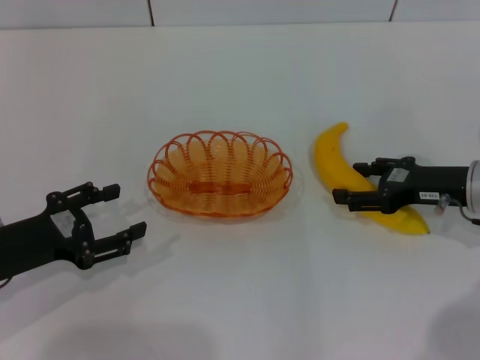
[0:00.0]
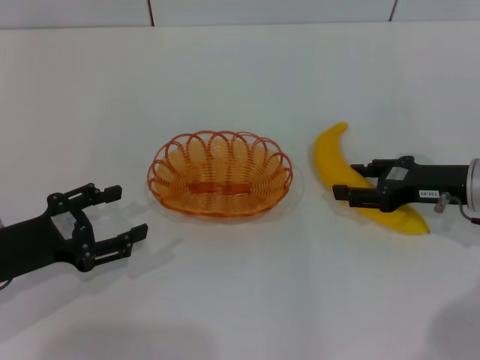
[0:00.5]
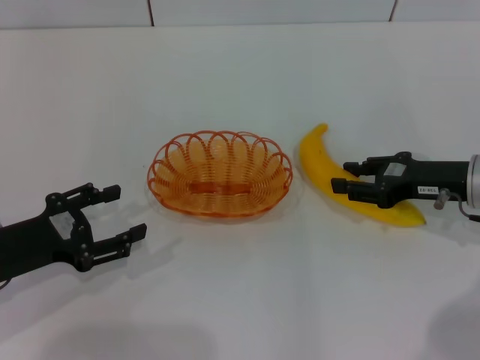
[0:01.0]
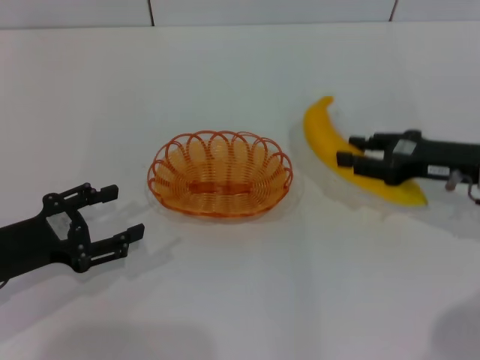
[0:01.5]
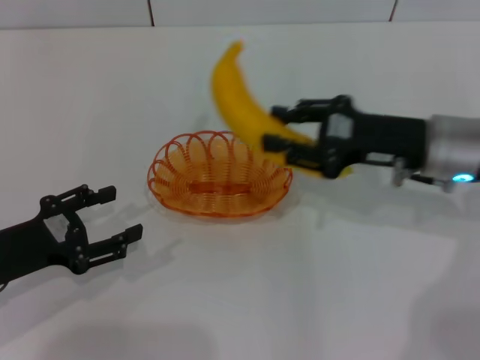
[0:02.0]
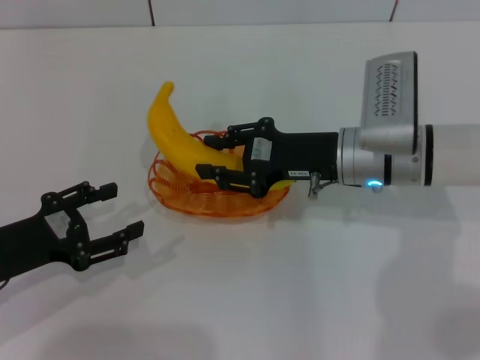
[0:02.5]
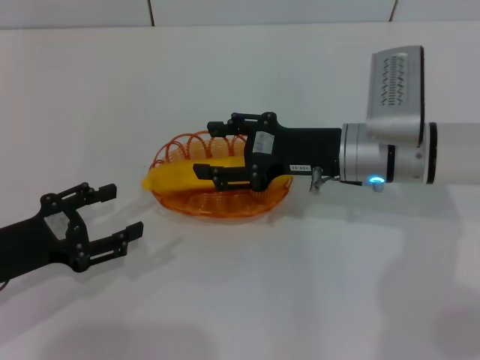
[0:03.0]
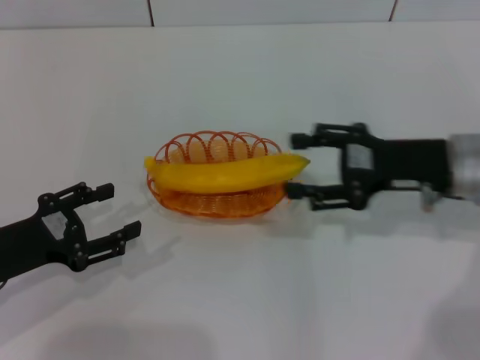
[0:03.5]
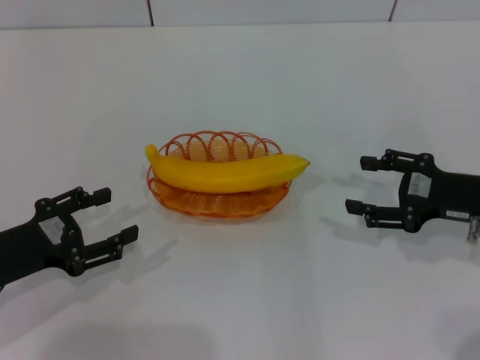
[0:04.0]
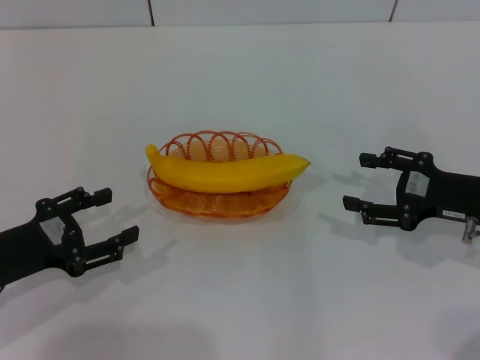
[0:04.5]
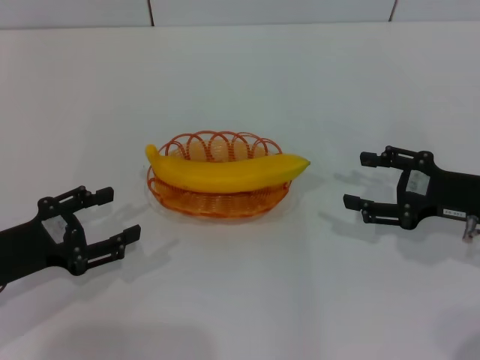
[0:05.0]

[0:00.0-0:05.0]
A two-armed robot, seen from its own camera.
Step, 0:02.0 to 0:03.0: Place the banana into the basket with the right gripper.
0:00.0 to 0:02.5: The right gripper heads to the left, covering about 15 cm, and closes up.
0:02.5 to 0:05.0: The right gripper is displaced to the right and backward by about 15 cm, and opens its fingers.
